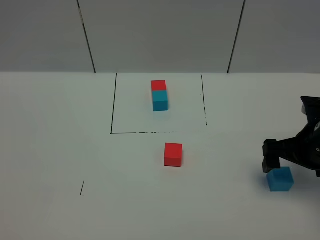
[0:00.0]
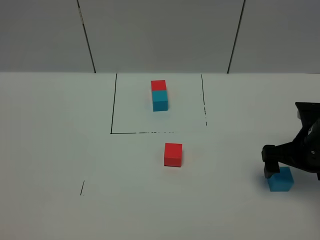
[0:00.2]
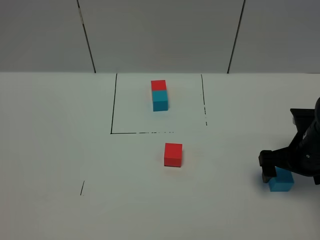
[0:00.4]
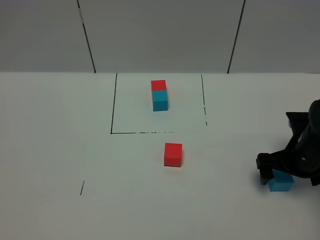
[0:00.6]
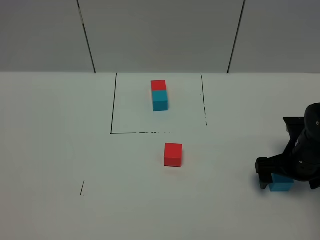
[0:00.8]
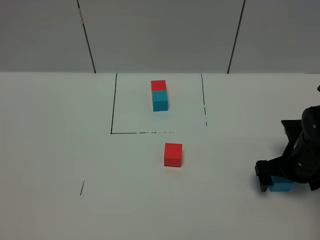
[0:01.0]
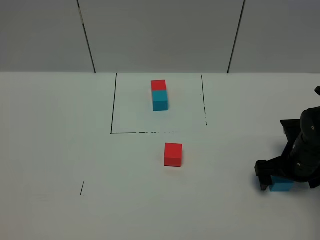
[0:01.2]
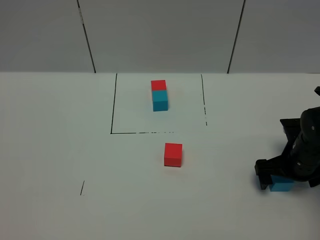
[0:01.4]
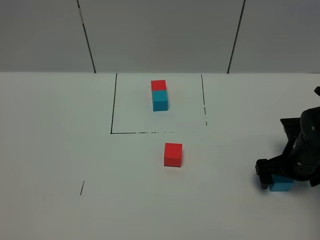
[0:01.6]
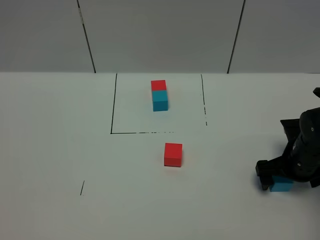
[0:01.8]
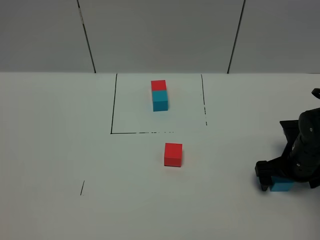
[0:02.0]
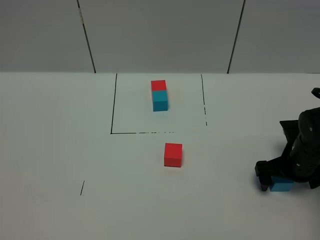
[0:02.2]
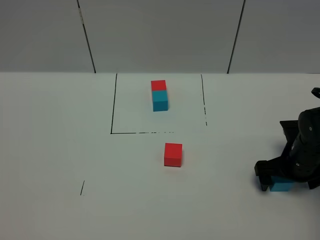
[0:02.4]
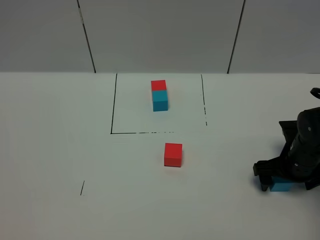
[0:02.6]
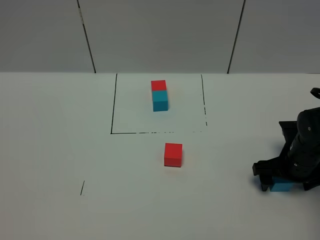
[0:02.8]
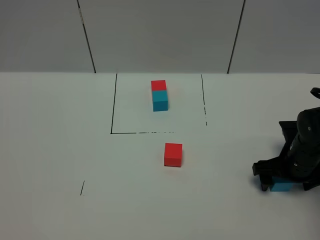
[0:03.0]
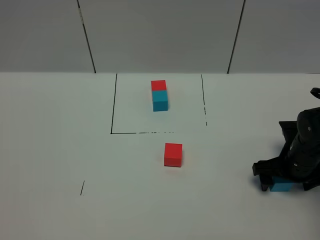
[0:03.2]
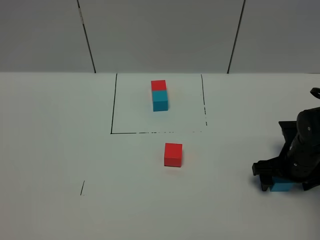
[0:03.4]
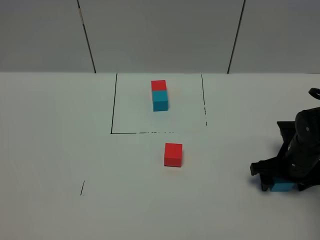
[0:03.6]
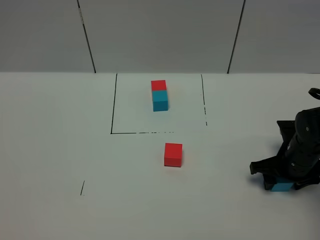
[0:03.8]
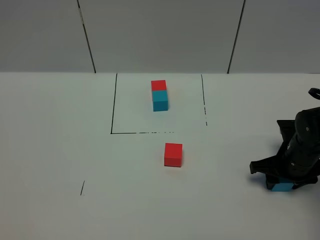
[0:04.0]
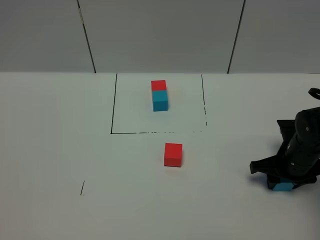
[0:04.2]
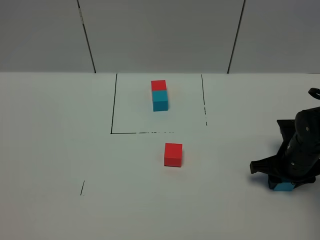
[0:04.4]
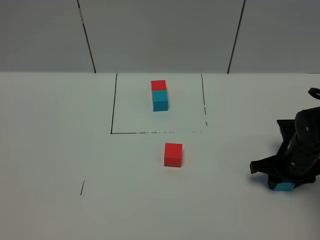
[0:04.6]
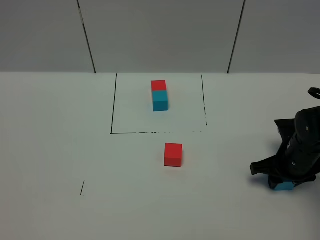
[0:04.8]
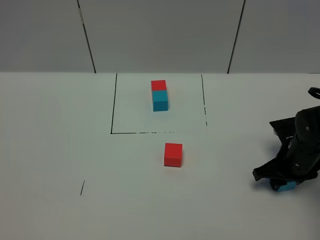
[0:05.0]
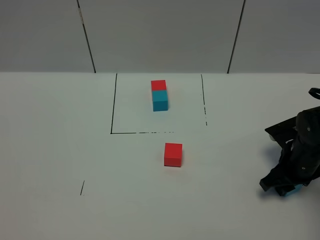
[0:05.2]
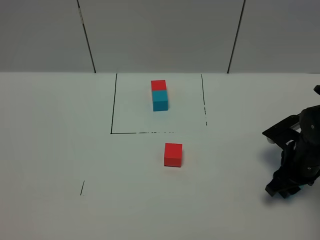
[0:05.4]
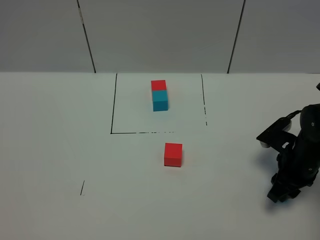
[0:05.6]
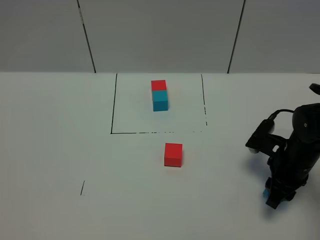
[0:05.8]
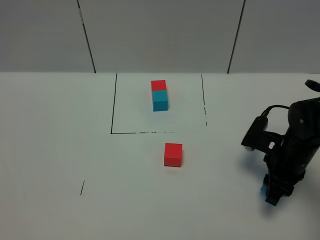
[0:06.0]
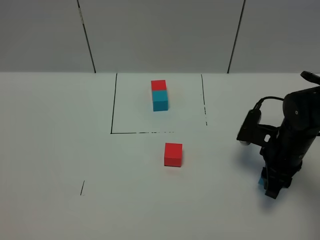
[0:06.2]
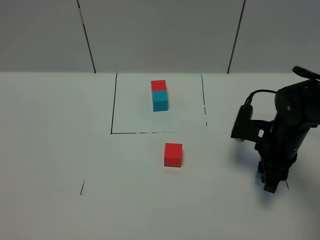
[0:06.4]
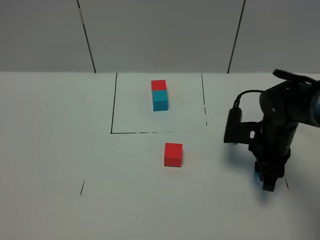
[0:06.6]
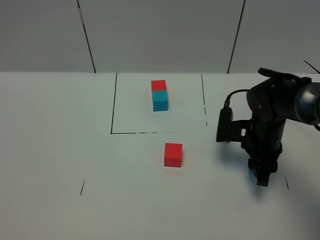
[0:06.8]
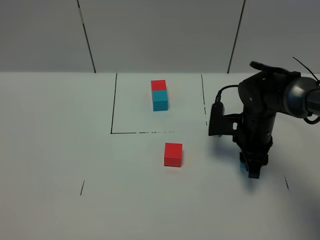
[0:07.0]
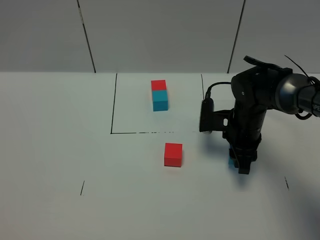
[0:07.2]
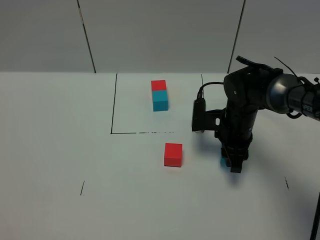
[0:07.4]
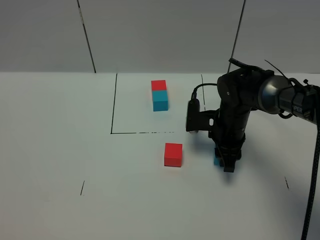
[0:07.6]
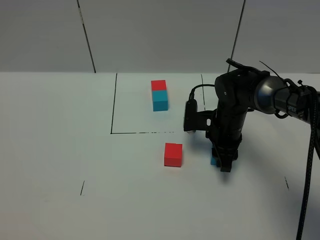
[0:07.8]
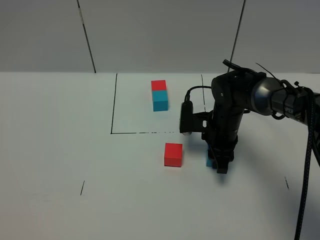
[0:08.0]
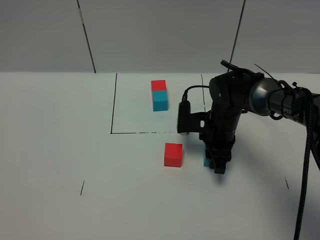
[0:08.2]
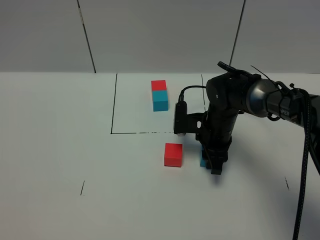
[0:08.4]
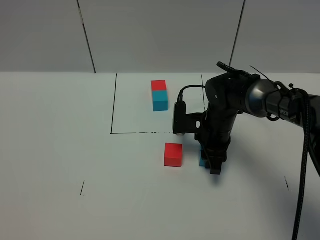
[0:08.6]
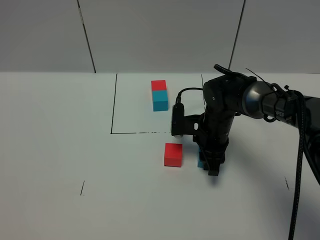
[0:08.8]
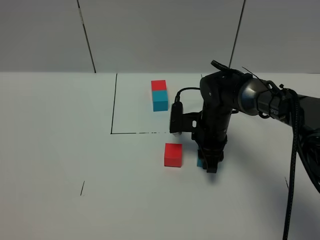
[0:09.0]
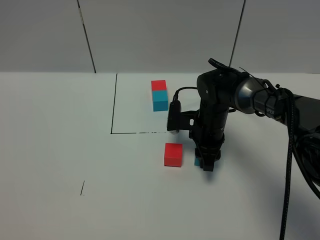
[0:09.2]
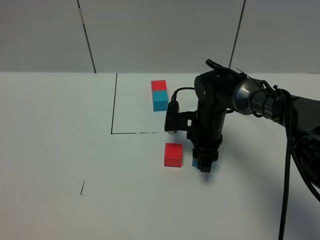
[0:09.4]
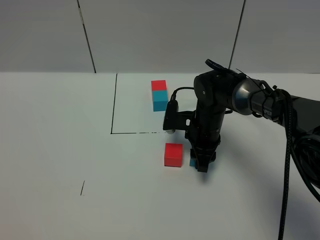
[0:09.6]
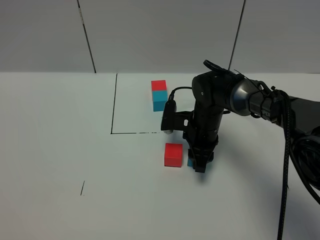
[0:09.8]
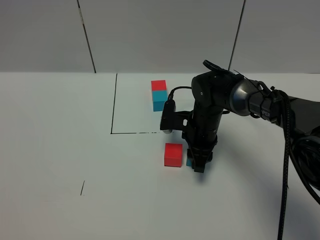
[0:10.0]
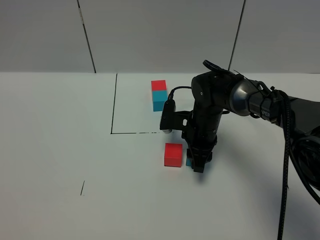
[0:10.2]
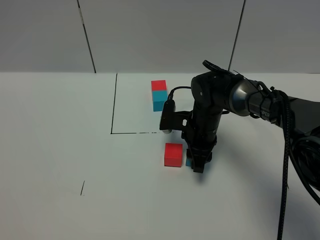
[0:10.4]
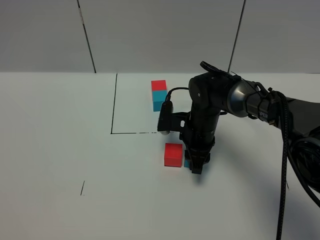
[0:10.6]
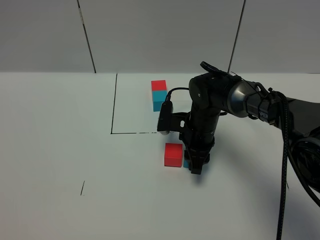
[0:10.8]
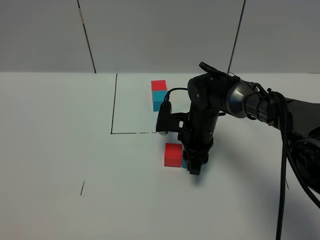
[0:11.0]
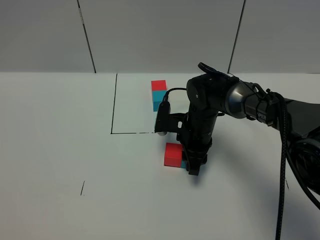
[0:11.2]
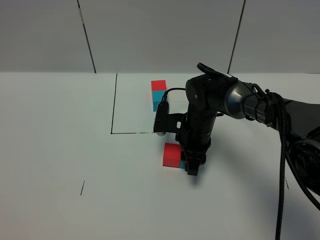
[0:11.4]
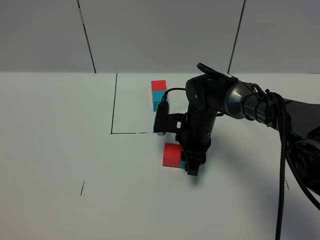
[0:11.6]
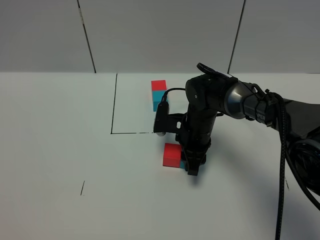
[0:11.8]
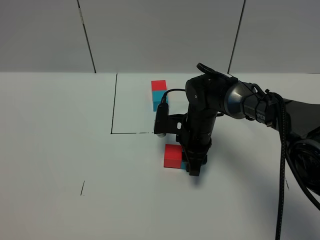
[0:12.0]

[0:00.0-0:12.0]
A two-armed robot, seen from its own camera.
Task of the whole recording: According to the building block template in front, assemble the scattered blocks together.
0:00.0 to 0:01.6: The right gripper is displaced downward by some 10 cm.
0:01.6 to 0:03.0: Both grippers stay about where they are.
0:03.0 to 0:04.4: The right gripper closes up.
0:06.0 to 0:07.6: The right gripper moves forward and to the left, some 15 cm.
0:07.6 to 0:10.4: The grippers make only small movements.
0:10.4 to 0:12.0: Both grippers stay about where they are.

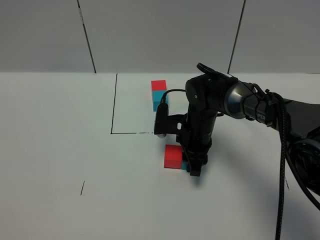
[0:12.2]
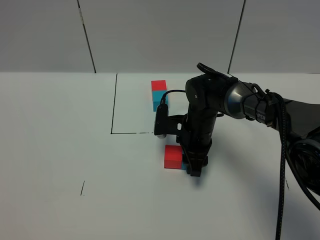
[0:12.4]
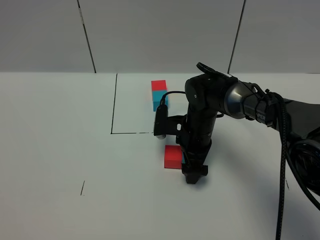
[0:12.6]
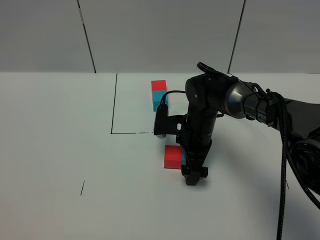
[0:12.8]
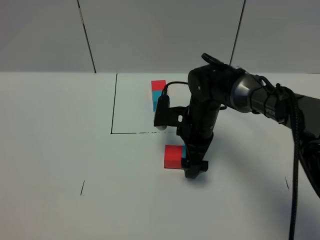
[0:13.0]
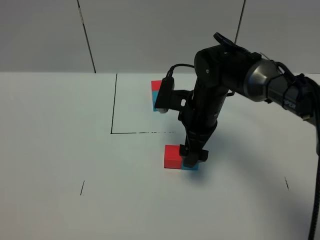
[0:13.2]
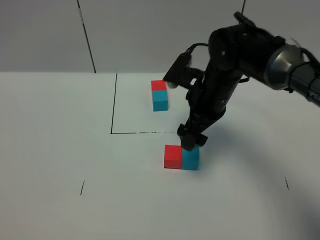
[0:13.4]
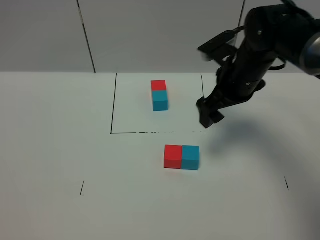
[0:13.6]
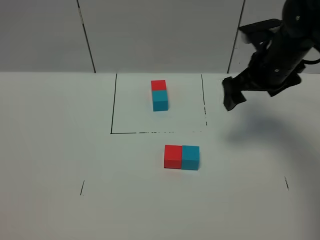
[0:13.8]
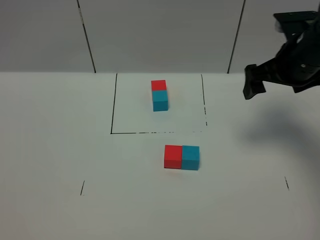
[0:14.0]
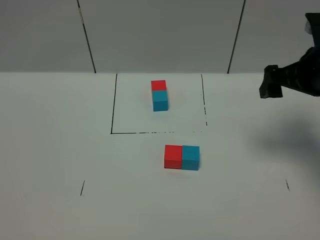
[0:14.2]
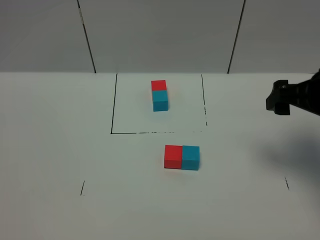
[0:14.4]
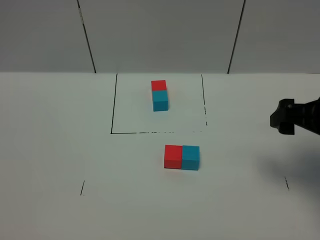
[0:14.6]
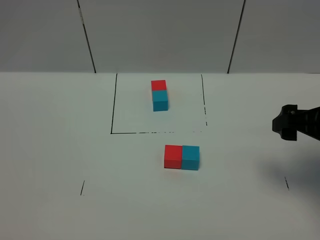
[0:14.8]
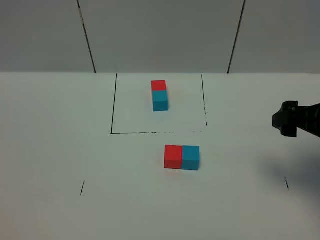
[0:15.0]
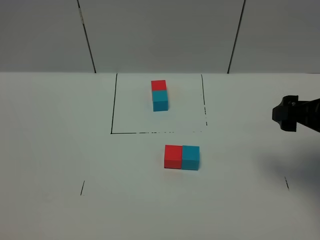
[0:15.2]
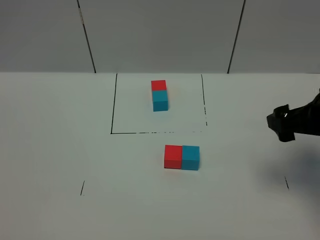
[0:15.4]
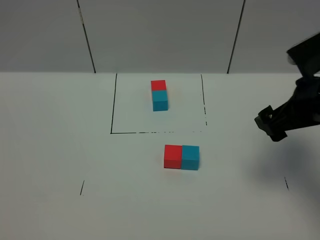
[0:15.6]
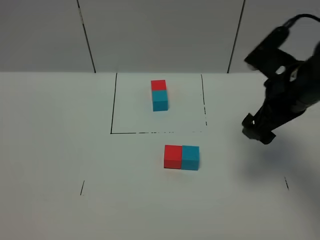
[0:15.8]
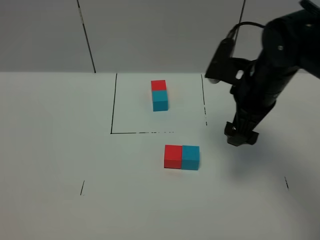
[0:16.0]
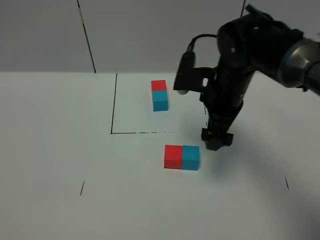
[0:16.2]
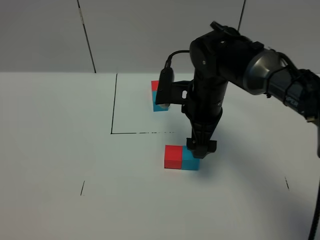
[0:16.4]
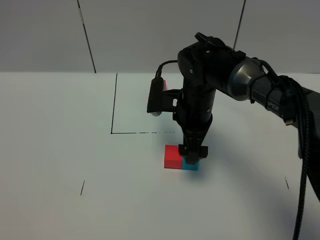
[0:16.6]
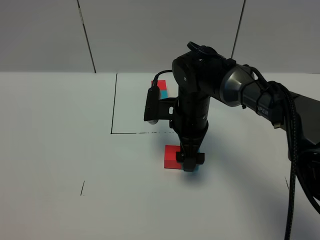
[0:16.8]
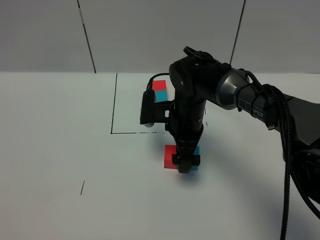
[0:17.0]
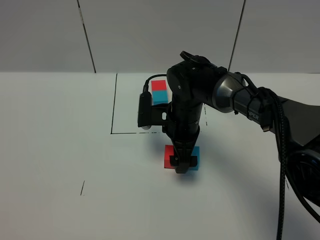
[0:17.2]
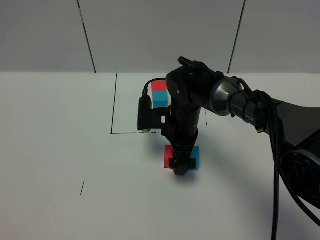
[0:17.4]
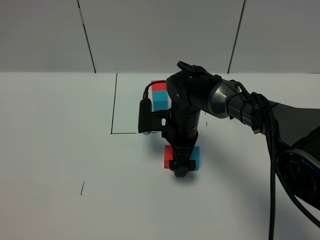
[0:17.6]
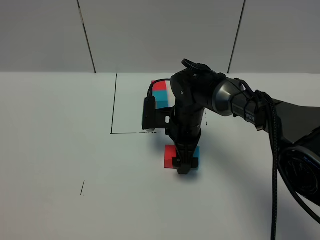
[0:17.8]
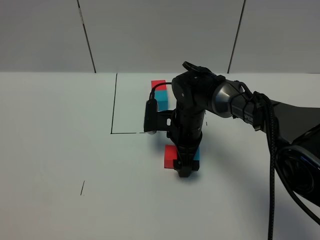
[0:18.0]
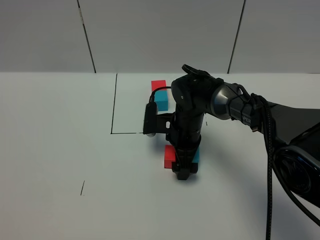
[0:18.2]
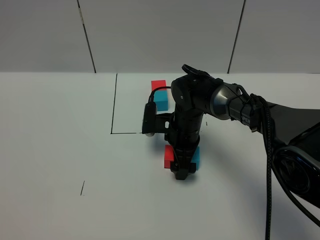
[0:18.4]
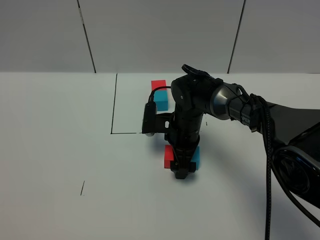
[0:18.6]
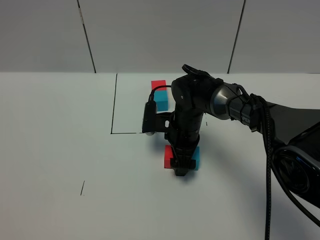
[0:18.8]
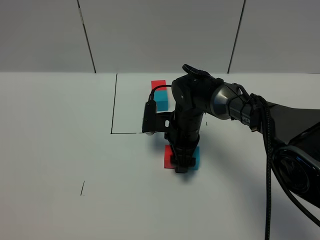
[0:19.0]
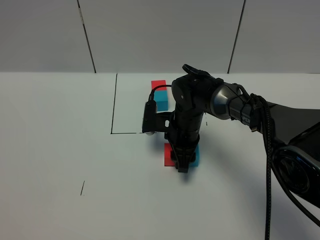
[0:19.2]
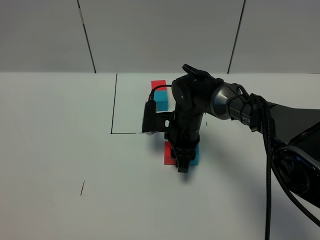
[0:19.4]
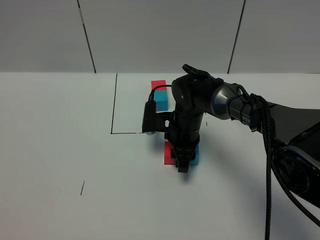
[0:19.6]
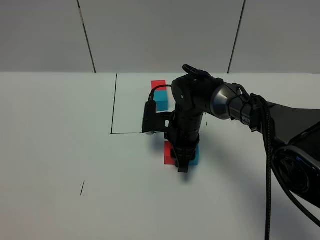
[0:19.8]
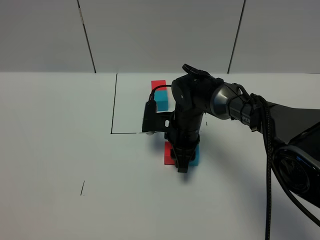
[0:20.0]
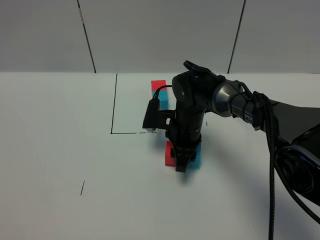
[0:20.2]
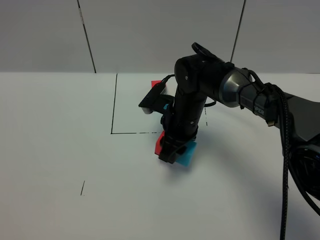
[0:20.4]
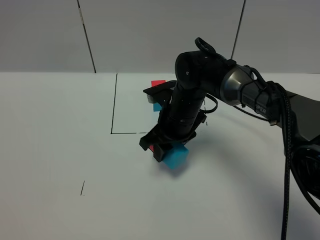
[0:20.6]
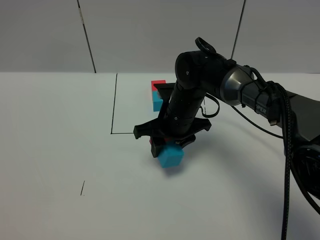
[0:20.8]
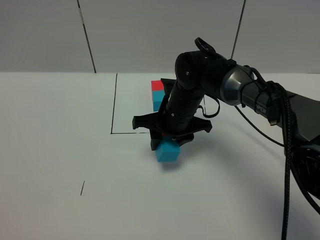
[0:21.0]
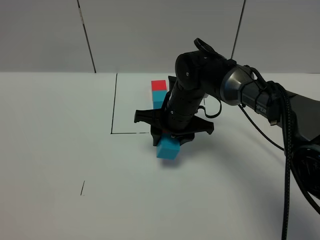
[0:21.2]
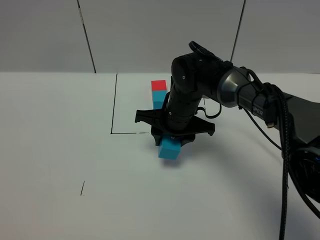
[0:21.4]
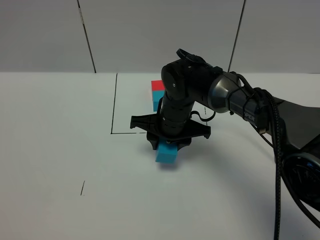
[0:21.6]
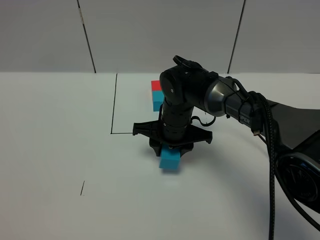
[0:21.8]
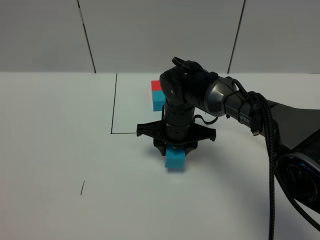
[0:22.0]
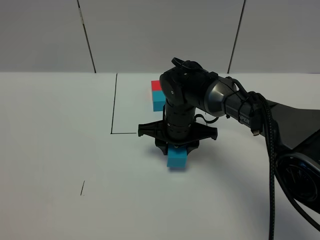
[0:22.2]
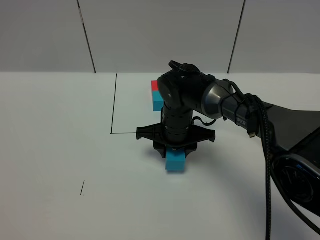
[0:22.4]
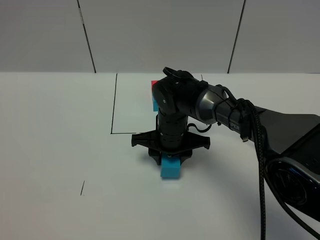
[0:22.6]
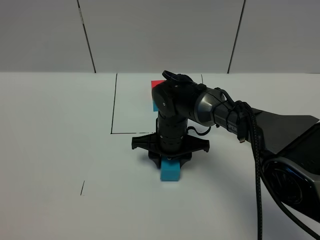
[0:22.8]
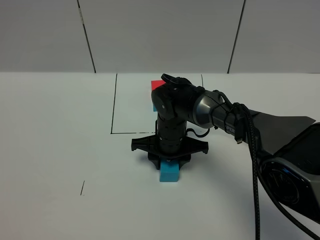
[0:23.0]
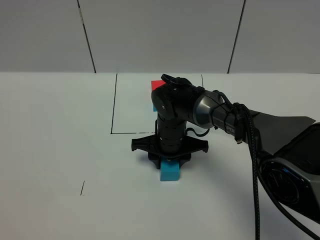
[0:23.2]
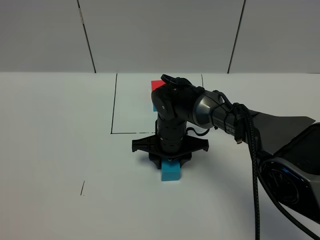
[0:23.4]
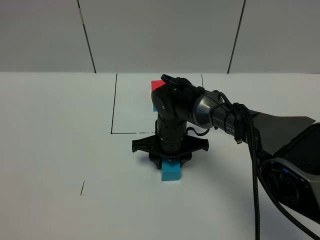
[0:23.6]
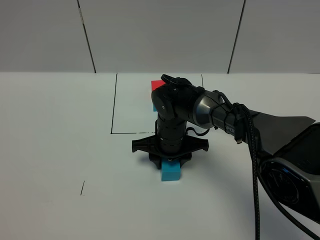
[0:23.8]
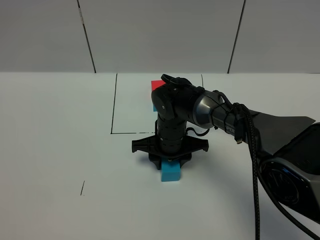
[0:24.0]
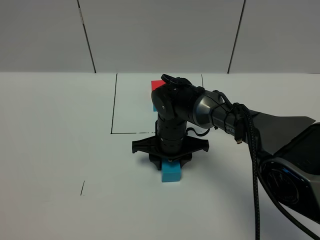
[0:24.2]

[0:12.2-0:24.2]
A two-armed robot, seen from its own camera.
Task of the whole recording: According to the building block template in front, assemble the scattered blocks together.
0:12.2 to 0:13.8: The right gripper travels upward and to the right by roughly 20 cm, and opens up.
0:13.8 to 0:15.2: The right gripper heads backward, covering about 15 cm.
0:15.2 to 0:16.6: The right gripper heads to the left, forward and downward, covering some 25 cm.
0:16.6 to 0:18.2: The right gripper goes approximately 10 cm downward.
0:18.2 to 0:19.8: The right gripper closes its fingers.
0:19.8 to 0:21.2: The right gripper travels upward by about 5 cm.
0:22.6 to 0:24.2: The grippers move only a little.
